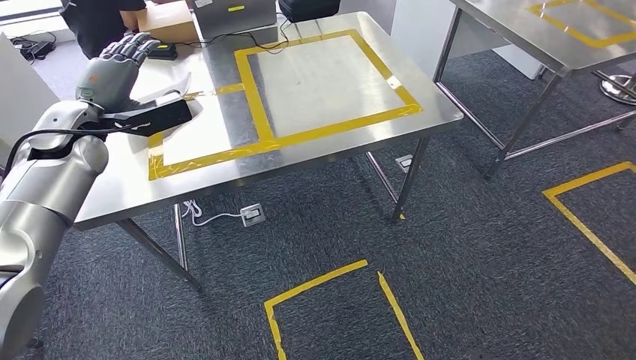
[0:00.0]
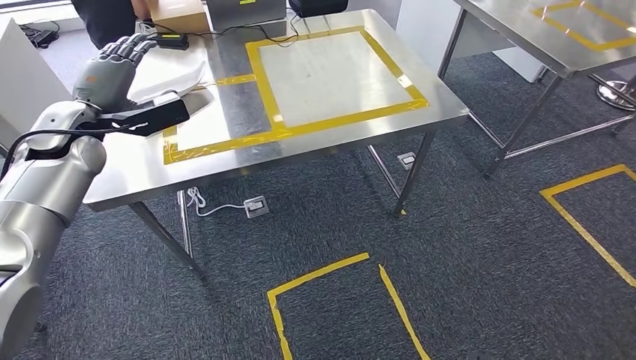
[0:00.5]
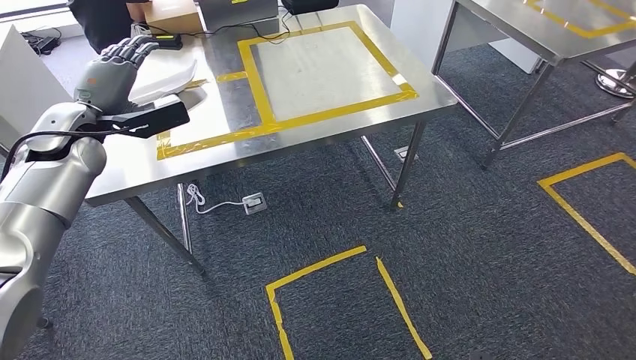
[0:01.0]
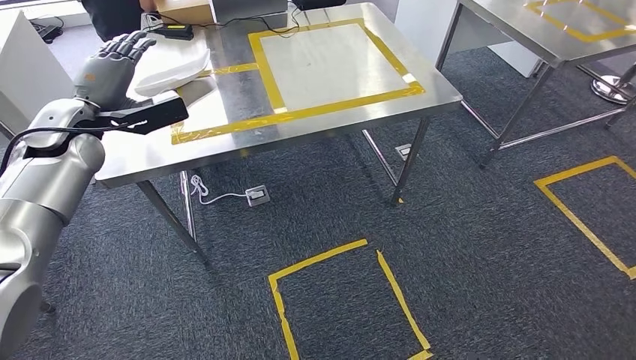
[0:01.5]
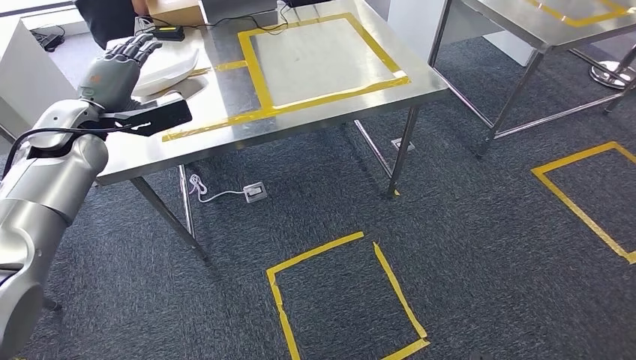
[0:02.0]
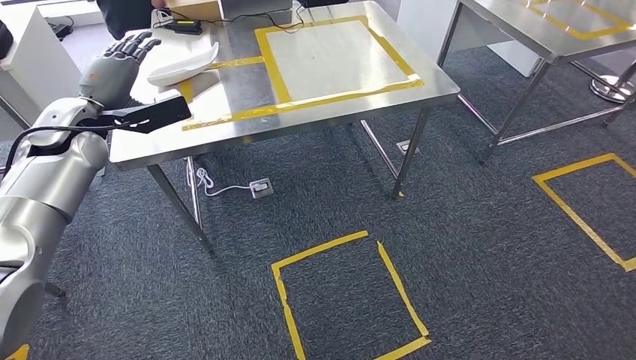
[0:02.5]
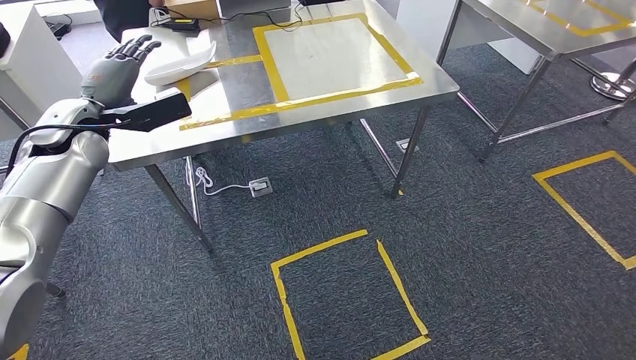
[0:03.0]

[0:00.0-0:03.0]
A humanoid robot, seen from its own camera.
Step, 0:00.0 to 0:03.0: Return to the initial position at the workbench.
